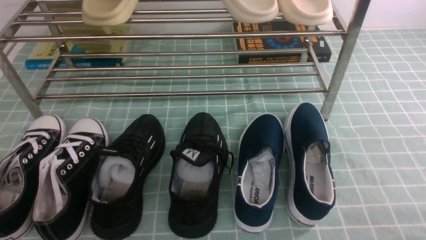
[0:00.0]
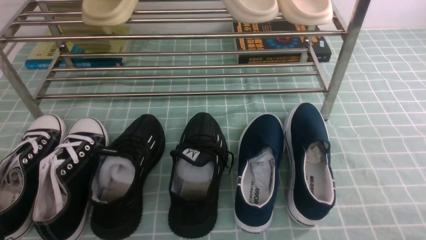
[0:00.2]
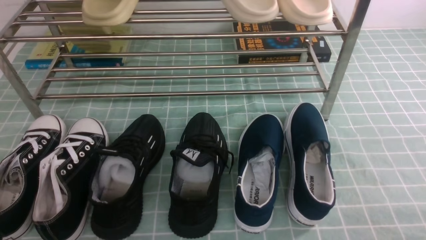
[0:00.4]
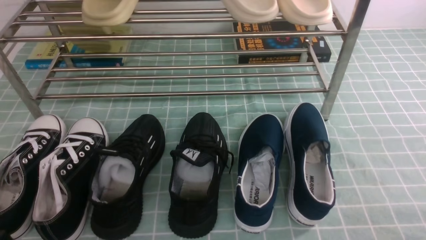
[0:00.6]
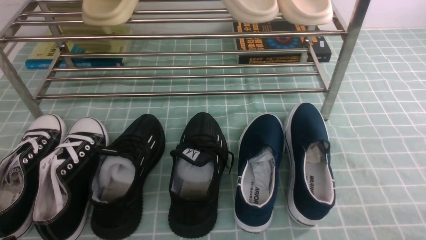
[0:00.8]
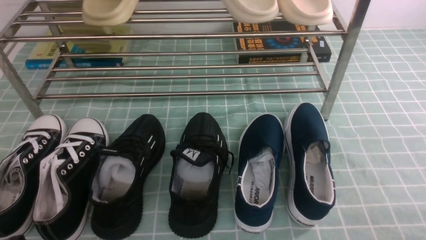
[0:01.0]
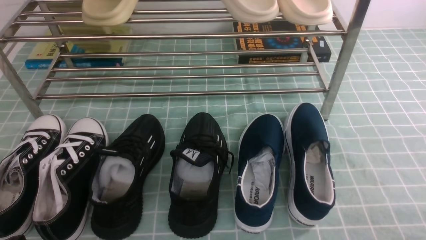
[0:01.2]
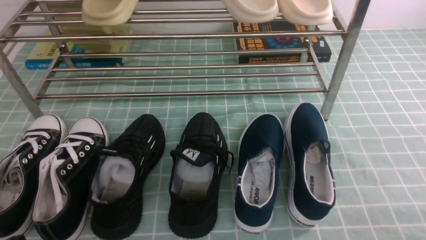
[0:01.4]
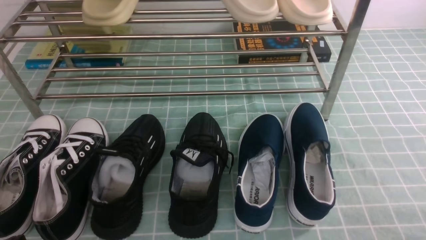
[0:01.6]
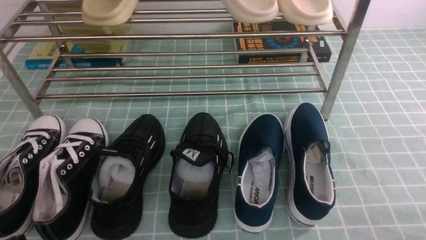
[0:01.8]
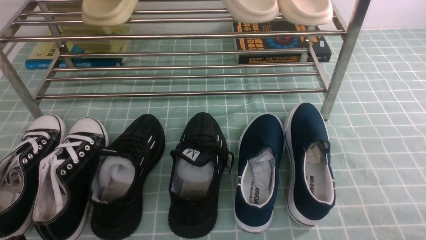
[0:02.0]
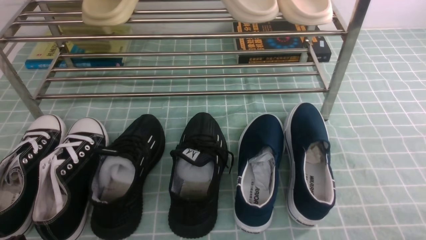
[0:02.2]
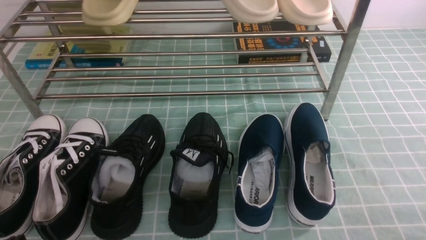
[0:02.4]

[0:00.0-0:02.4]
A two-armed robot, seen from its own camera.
0:01.2 to 0:02.4: The two grippers keep their place.
